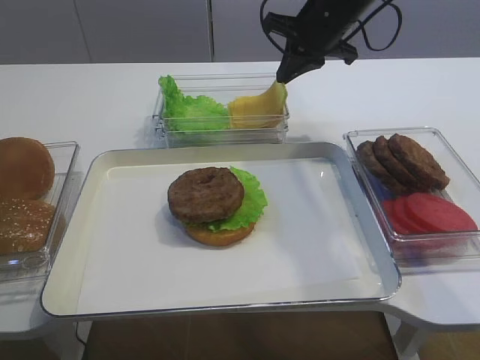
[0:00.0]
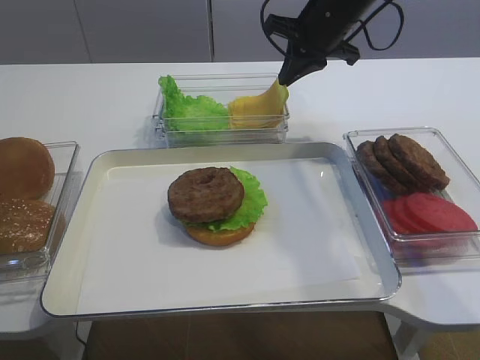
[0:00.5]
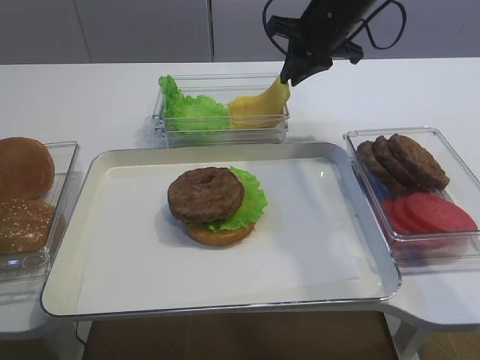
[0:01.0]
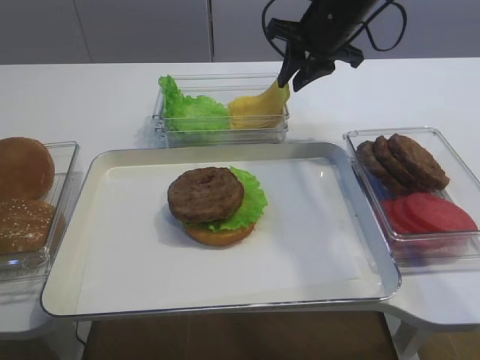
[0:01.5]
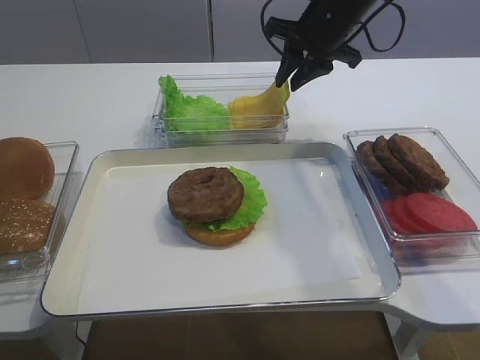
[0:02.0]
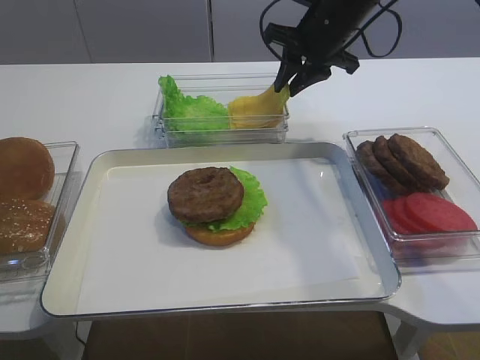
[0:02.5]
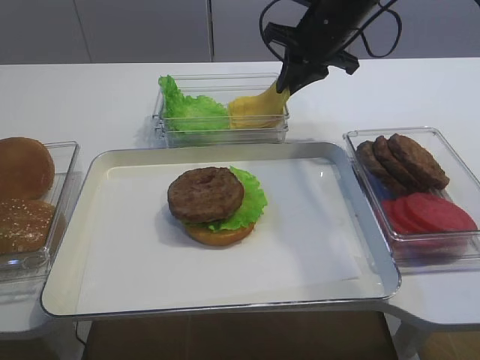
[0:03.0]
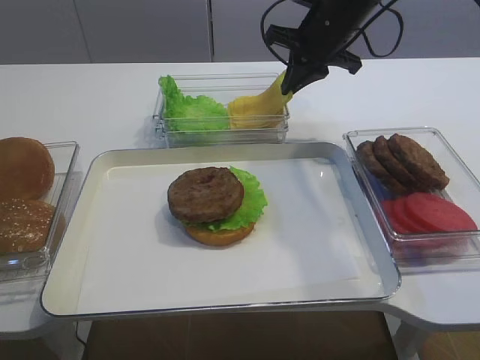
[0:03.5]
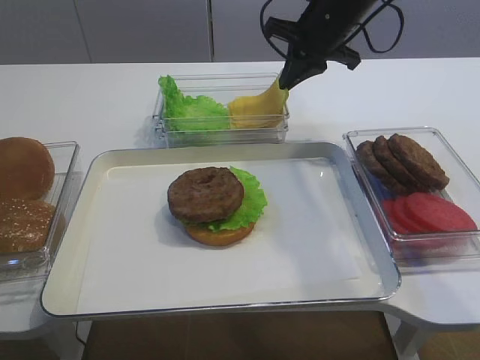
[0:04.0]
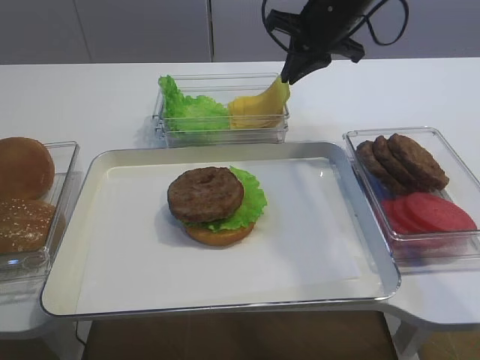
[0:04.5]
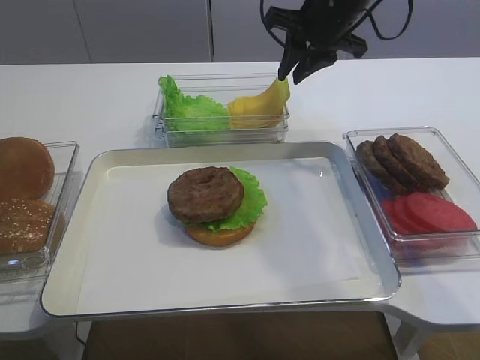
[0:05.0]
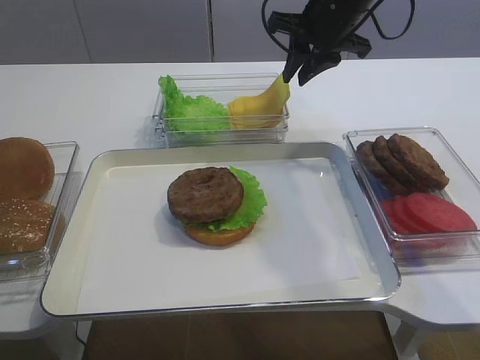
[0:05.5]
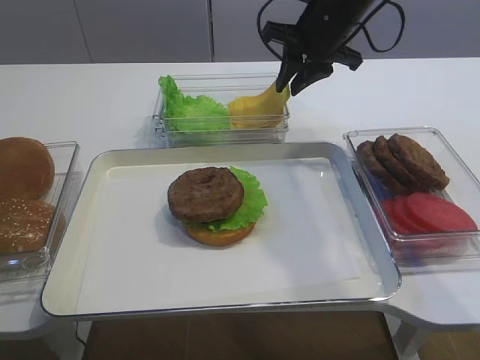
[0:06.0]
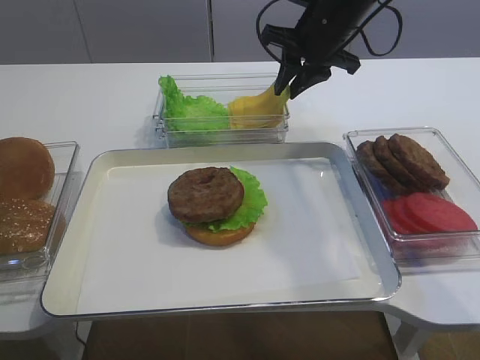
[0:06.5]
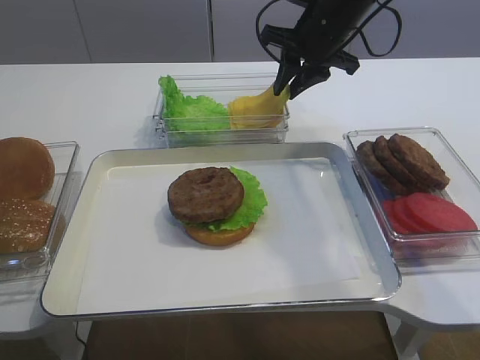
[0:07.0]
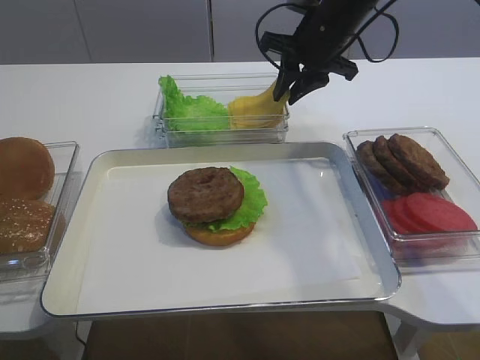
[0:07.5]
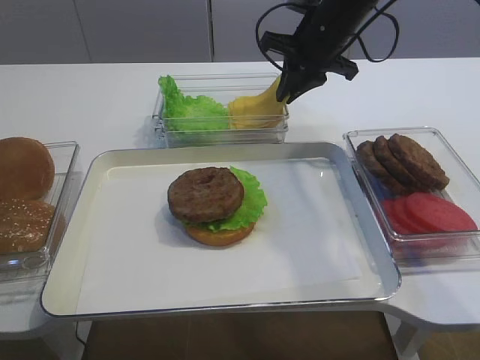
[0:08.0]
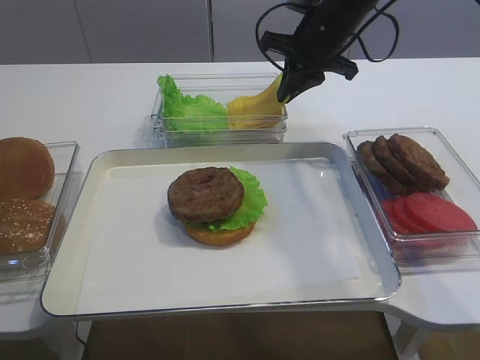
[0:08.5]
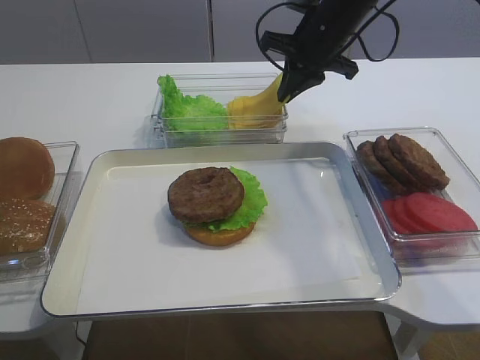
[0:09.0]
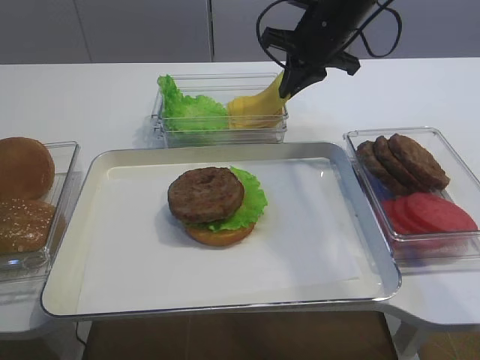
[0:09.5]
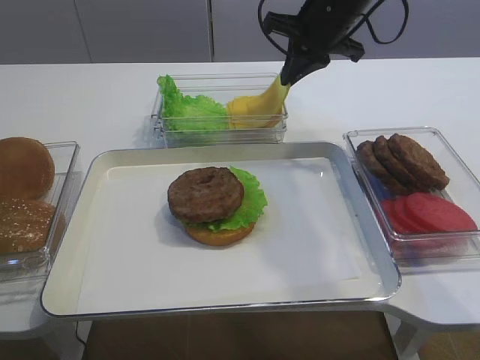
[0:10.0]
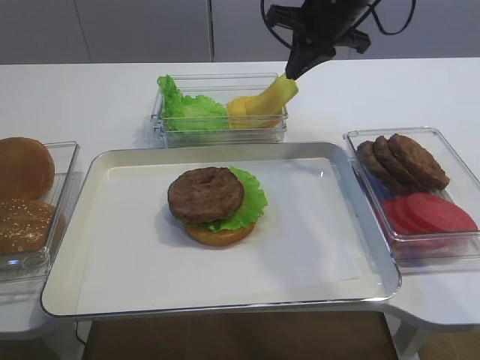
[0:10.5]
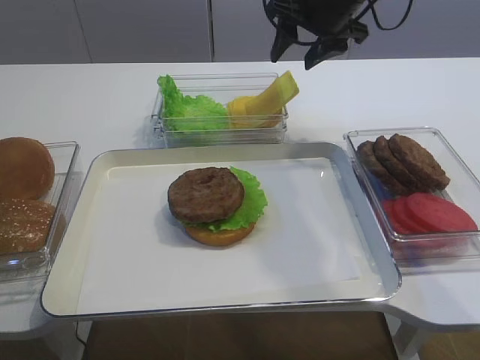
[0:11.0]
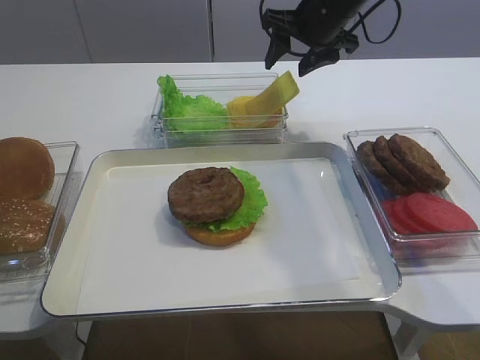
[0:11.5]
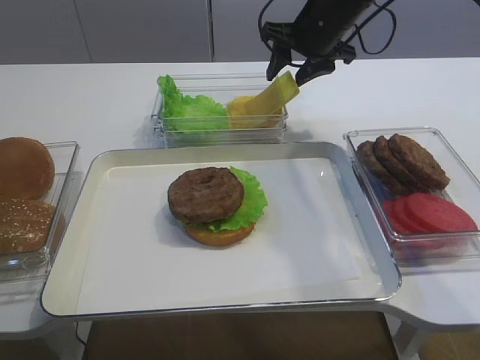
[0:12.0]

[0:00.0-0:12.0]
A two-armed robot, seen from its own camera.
0:00.0 to 0:04.0: Both grippers stay put.
0:04.0 to 0:10.0: The grippers make only small movements.
0:10.0 to 0:12.0: The right gripper opens up.

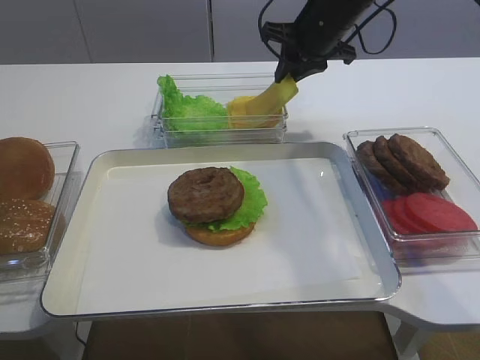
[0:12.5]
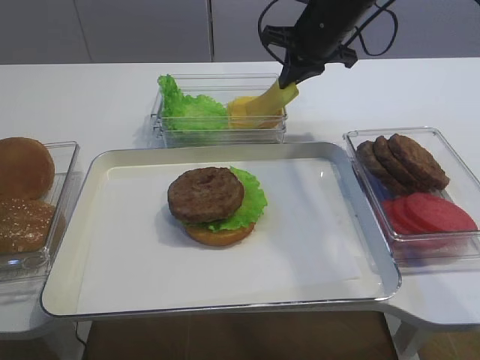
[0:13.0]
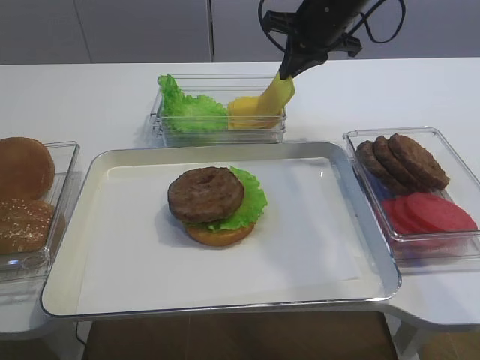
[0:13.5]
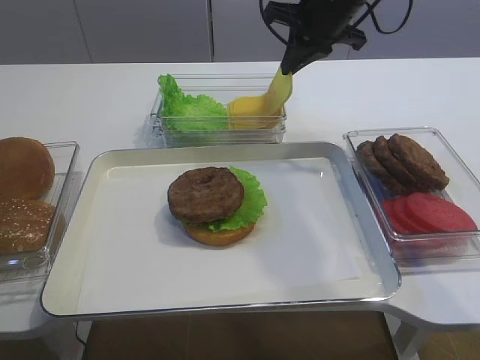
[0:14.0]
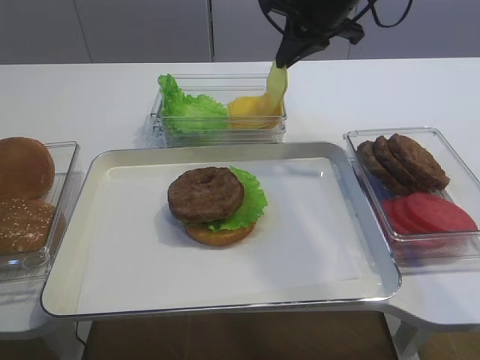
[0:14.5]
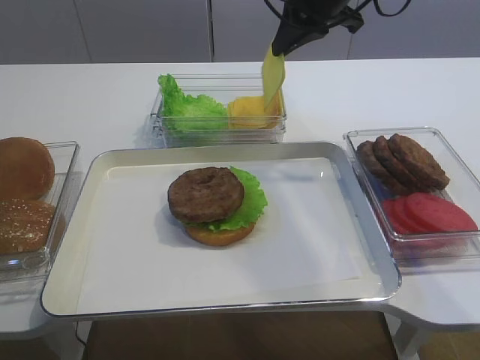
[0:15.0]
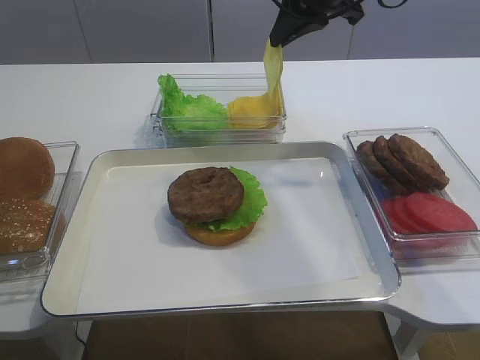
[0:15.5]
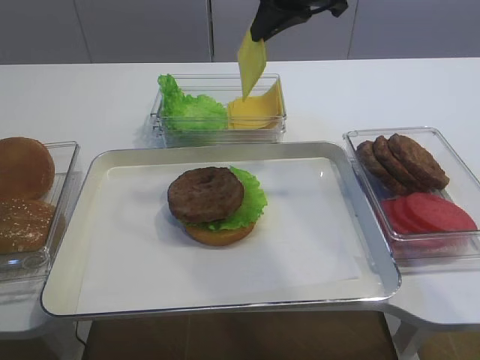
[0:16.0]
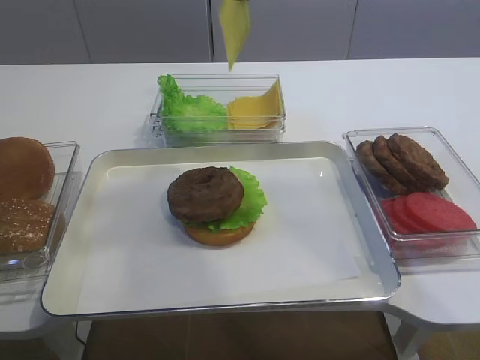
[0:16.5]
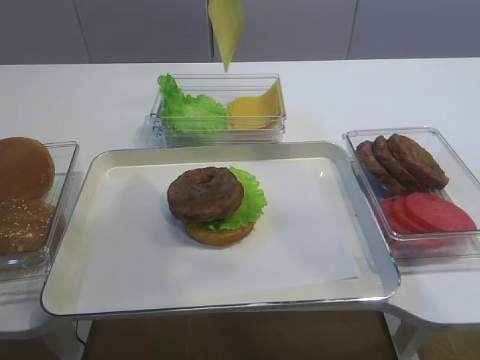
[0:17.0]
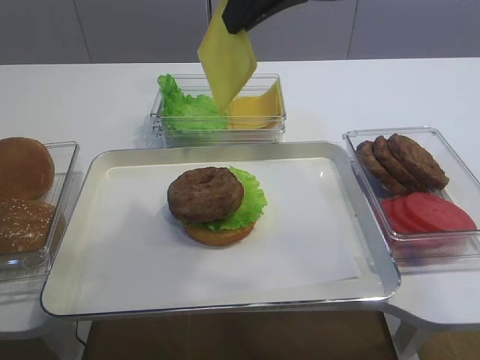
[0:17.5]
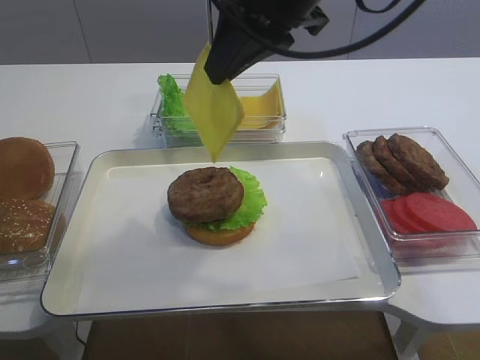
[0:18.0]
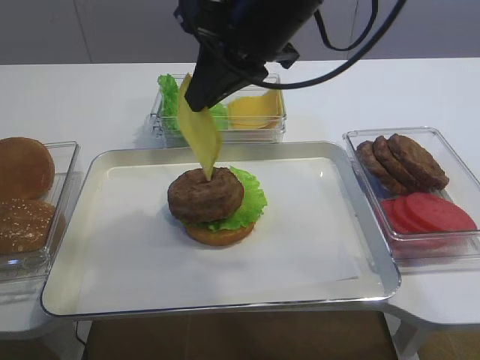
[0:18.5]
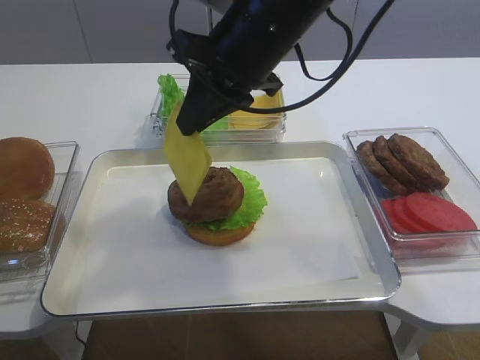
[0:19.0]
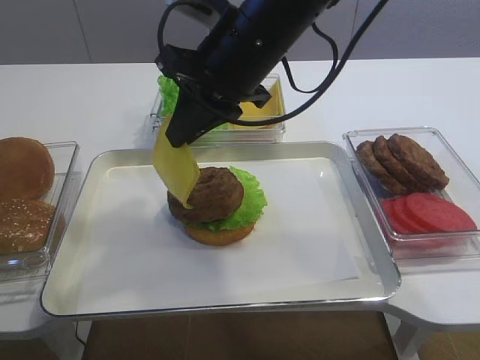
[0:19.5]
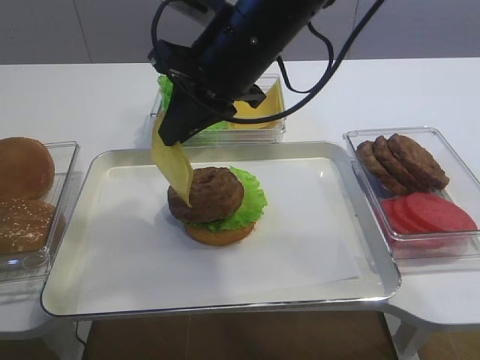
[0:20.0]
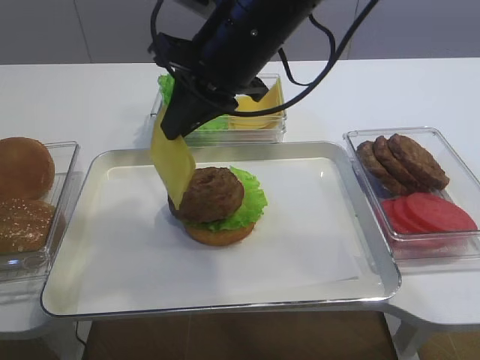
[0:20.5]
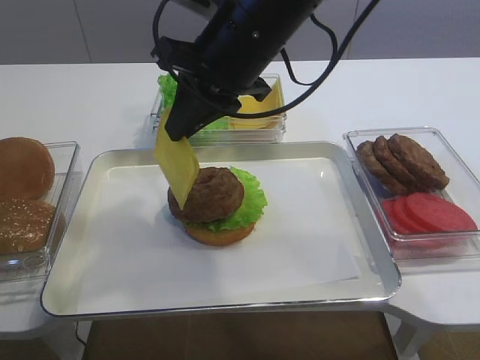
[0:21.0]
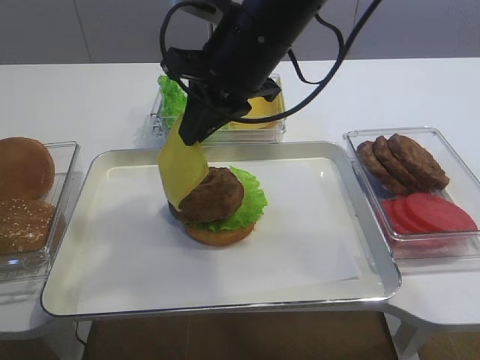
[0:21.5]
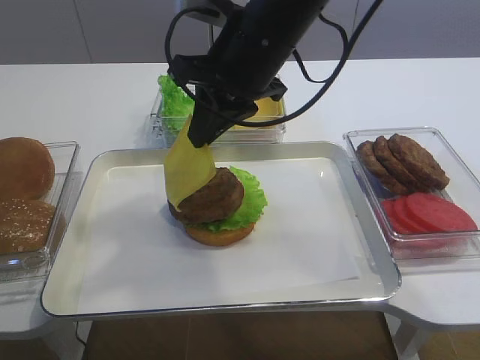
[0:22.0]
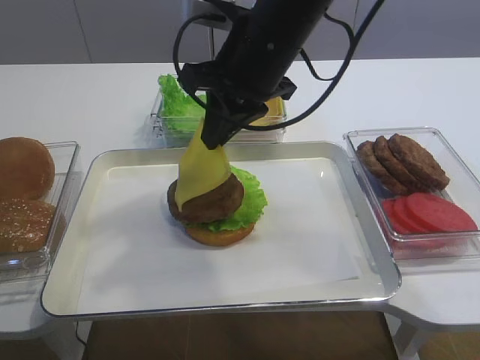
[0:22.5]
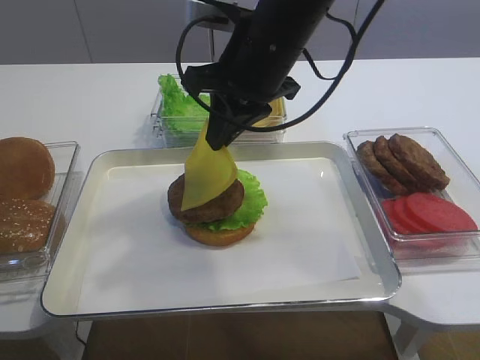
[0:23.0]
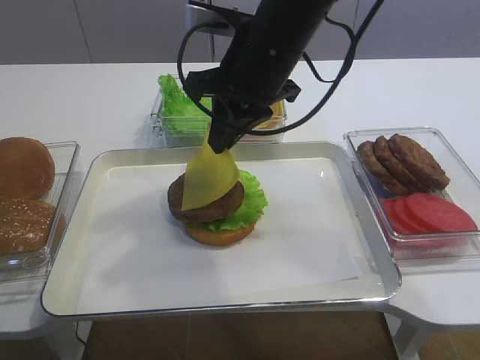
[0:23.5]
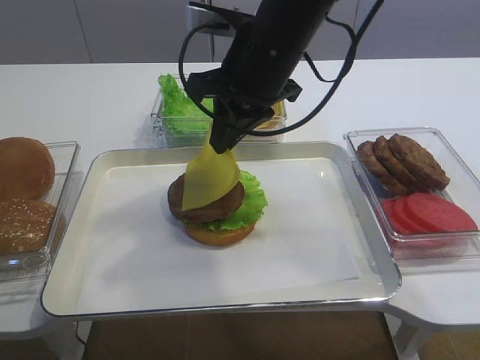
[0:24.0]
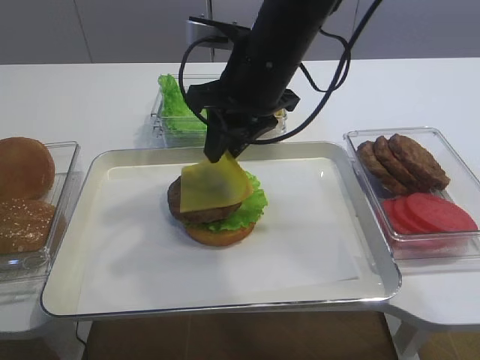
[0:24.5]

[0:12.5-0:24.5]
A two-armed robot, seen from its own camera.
0:12.5 to 0:14.5: The right gripper shifts by roughly 5 cm.
0:14.5 to 0:16.5: The right gripper heads upward and backward, covering approximately 10 cm.
0:16.5 to 0:18.5: The right gripper heads backward and downward, covering roughly 10 cm.
0:18.5 to 0:22.5: The grippers move only a little.
0:22.5 to 0:24.5: The grippers make only small movements.

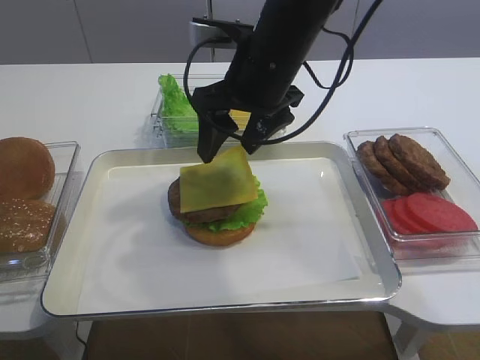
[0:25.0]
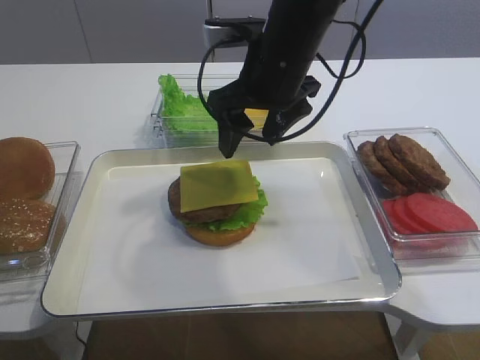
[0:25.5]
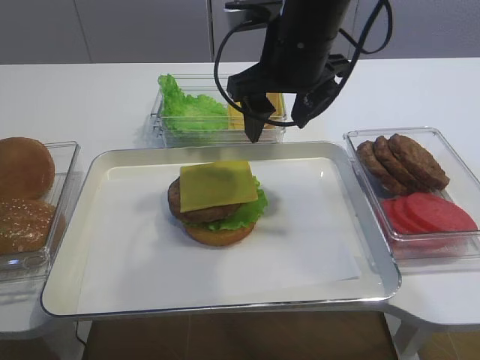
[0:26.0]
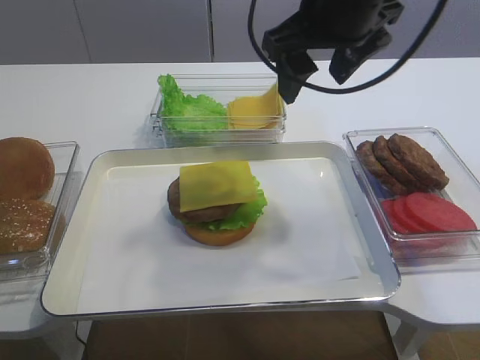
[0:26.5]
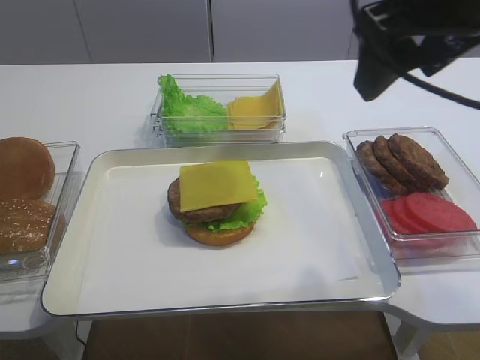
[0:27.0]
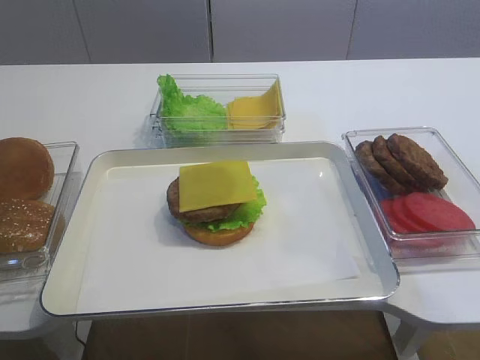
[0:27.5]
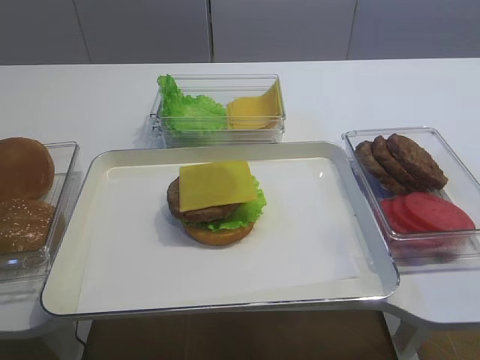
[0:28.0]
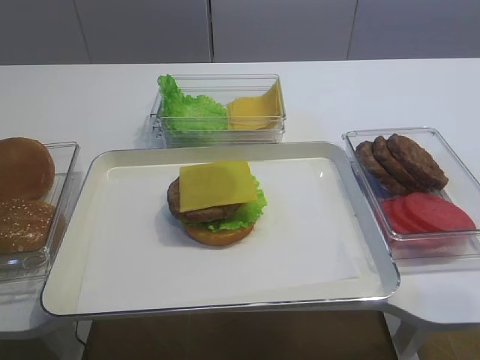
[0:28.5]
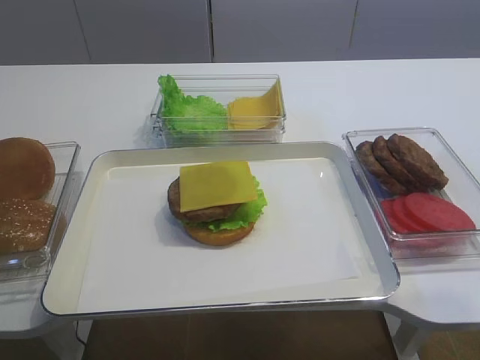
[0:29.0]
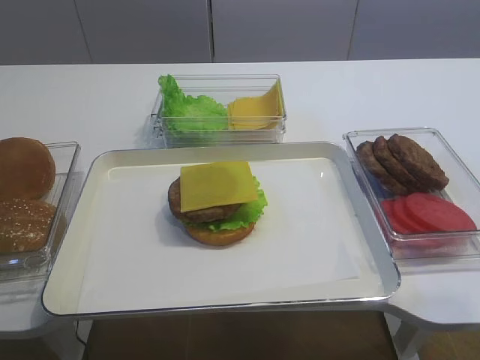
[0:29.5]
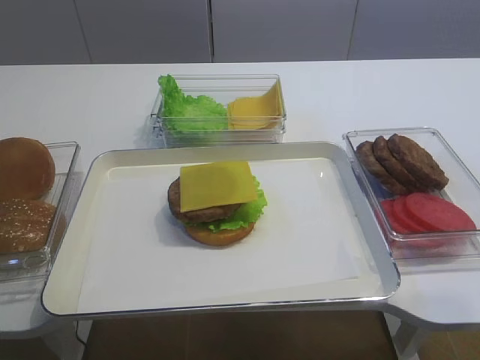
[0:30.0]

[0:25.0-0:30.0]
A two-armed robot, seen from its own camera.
0:25.0 to 0:27.5: The right gripper is displaced backward, to the right and upward by roughly 30 cm.
